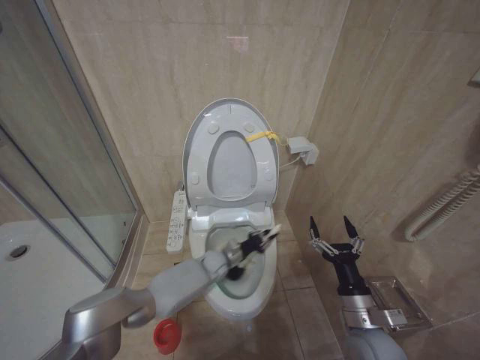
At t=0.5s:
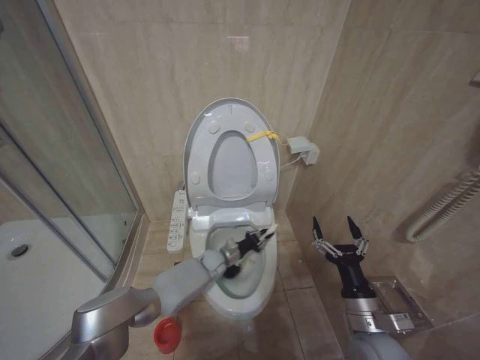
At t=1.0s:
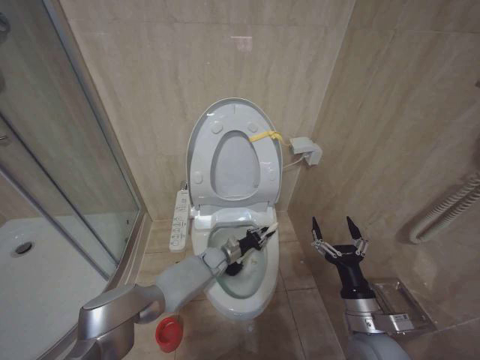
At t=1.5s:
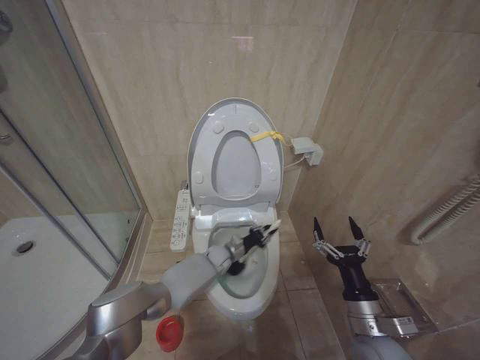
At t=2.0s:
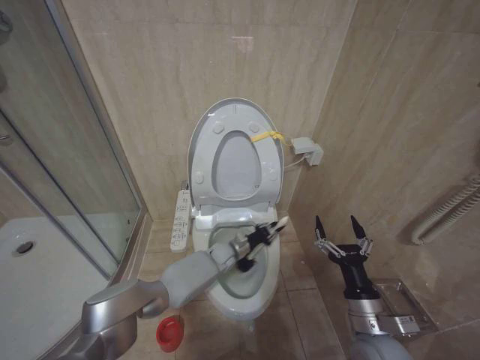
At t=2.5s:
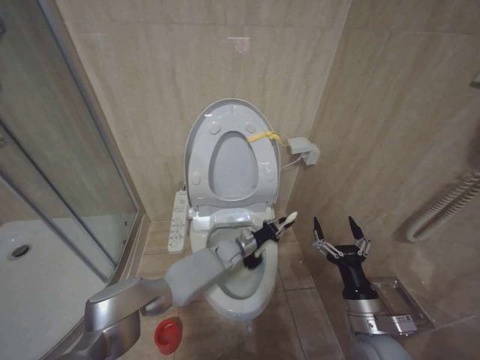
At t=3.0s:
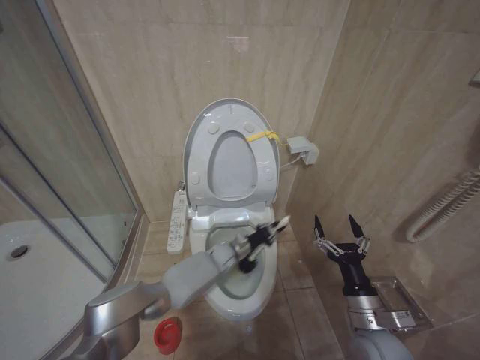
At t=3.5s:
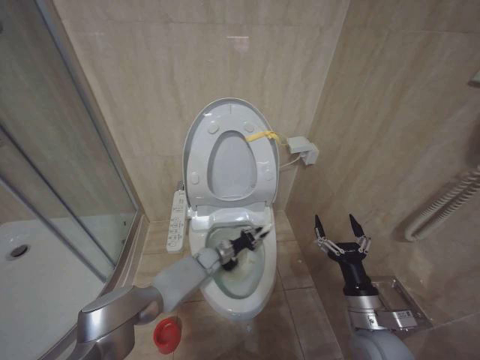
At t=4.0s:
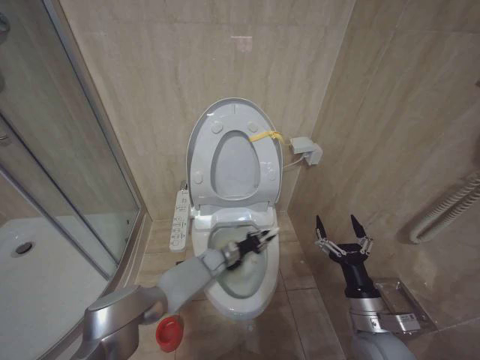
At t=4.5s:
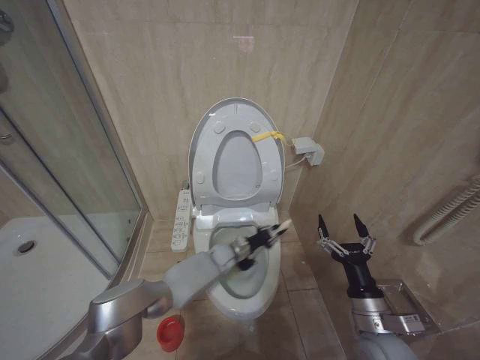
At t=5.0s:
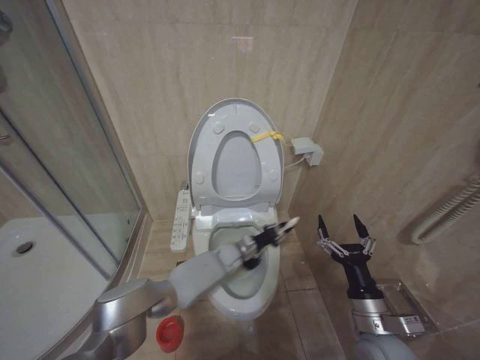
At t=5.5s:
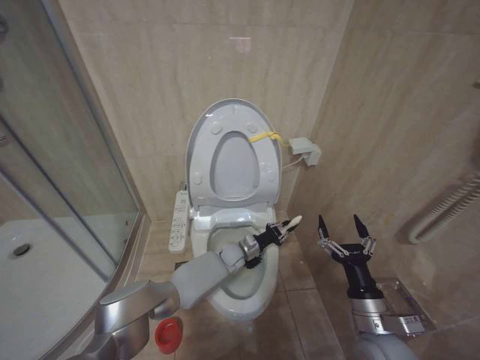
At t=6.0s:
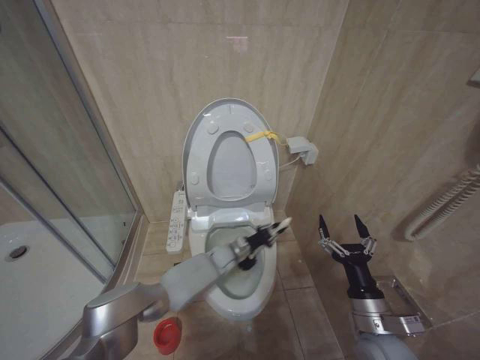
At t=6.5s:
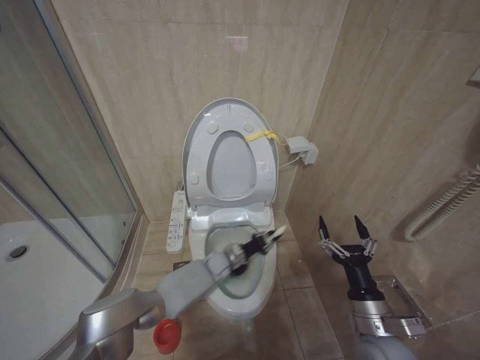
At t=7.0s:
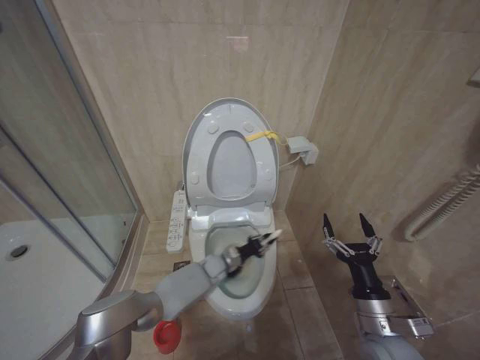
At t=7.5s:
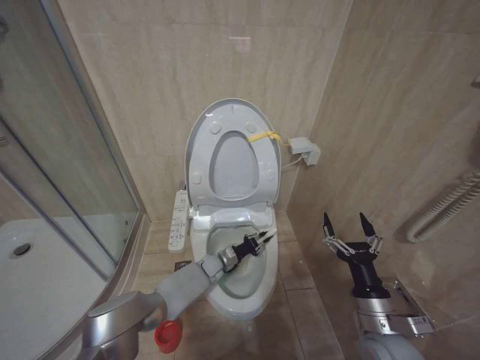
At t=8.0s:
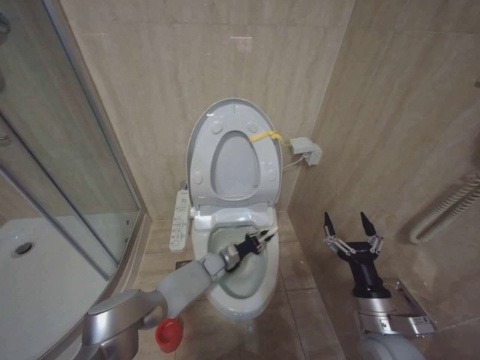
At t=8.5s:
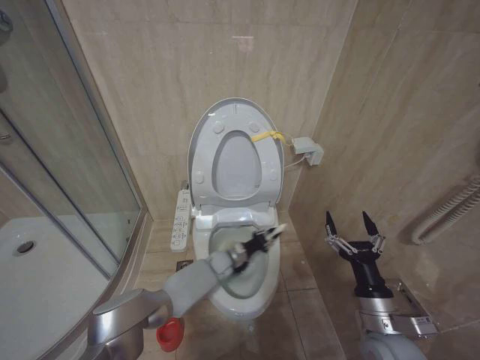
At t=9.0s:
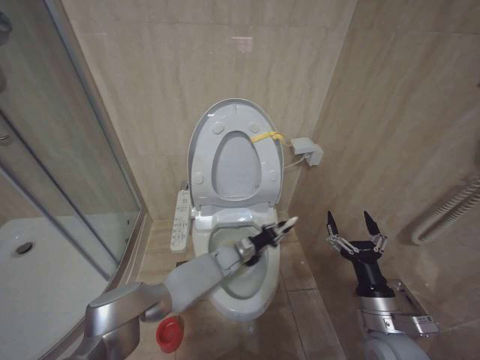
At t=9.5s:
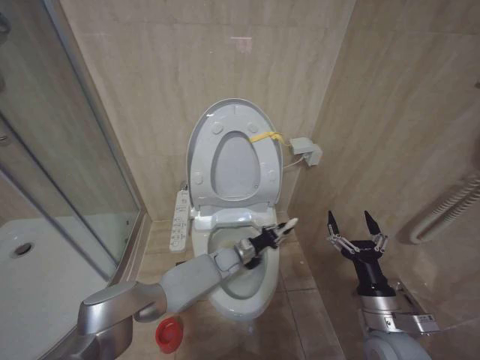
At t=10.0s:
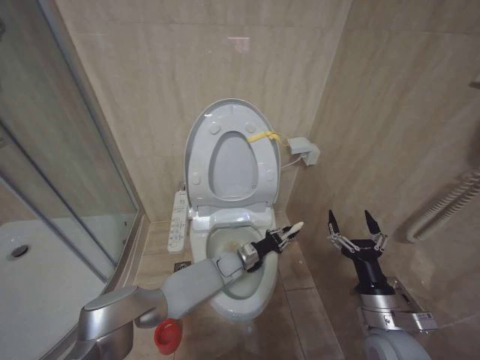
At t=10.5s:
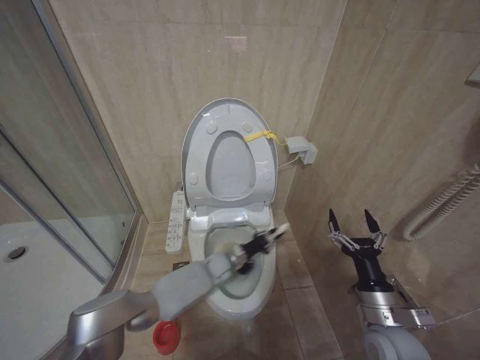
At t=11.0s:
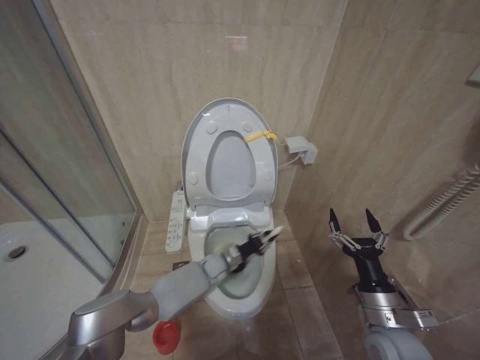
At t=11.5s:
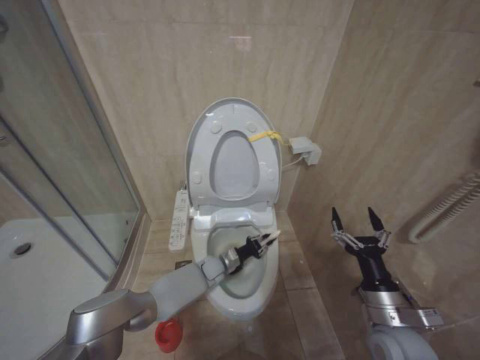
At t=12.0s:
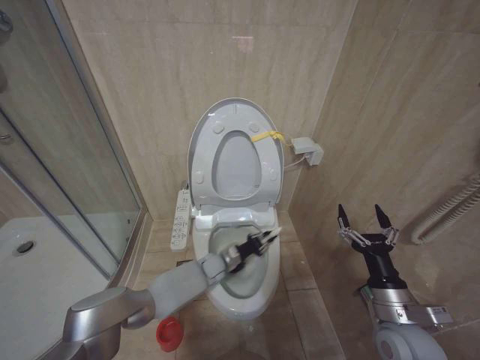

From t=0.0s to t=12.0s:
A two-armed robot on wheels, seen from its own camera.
Task of the whole recording: Open the toilet lid, clean the toilet bowl with a toilet brush, close the toilet lid, and flush.
From t=0.0s to t=2.0s: The grippers make only small movements.
From t=2.0s to t=4.0s: The grippers stay close to where they were, moving slightly.
From t=4.0s to t=6.0s: The left gripper shifts some 10 cm to the right and upward.
From t=6.0s to t=8.0s: The left gripper moves downward and to the left, roughly 10 cm.
From t=8.0s to t=10.0s: The left gripper shifts some 10 cm to the right and upward.
From t=10.0s to t=12.0s: The left gripper is displaced to the left by about 5 cm.

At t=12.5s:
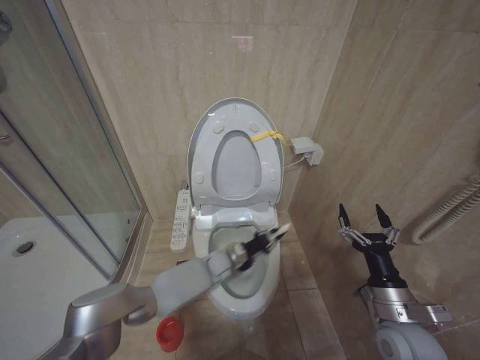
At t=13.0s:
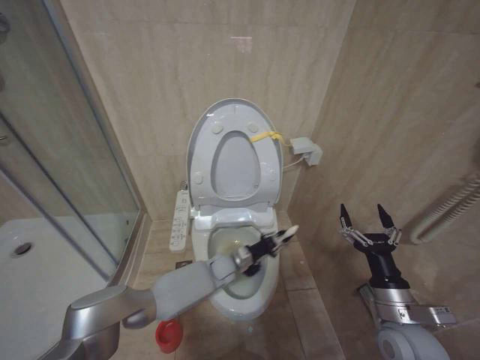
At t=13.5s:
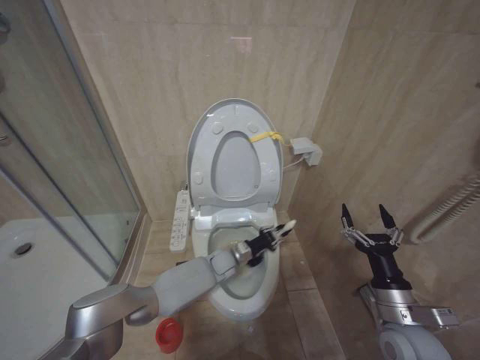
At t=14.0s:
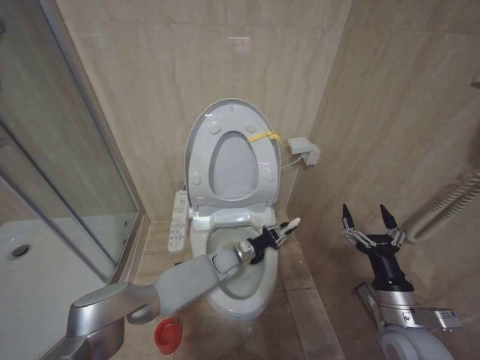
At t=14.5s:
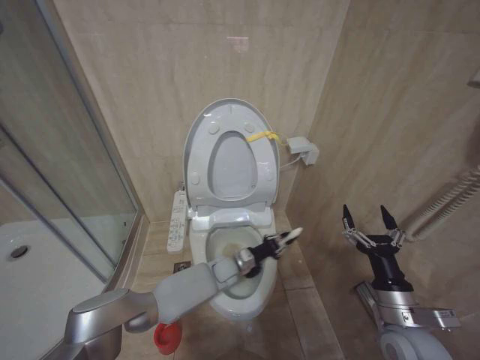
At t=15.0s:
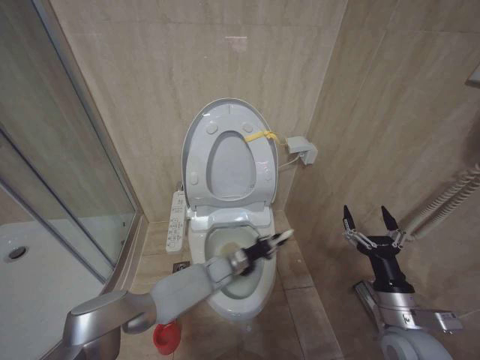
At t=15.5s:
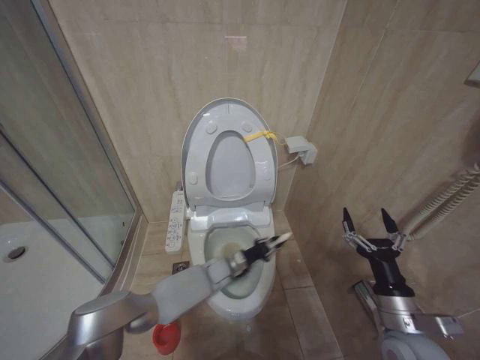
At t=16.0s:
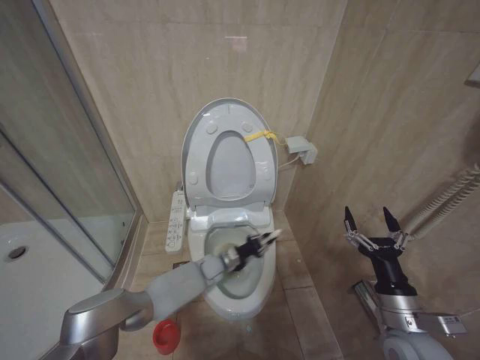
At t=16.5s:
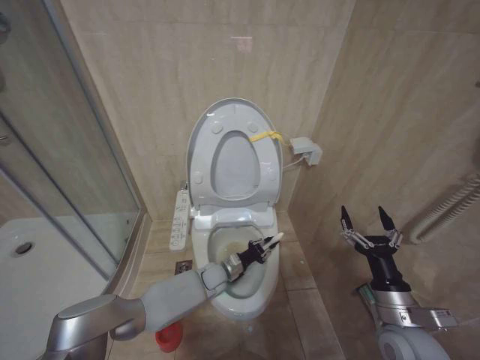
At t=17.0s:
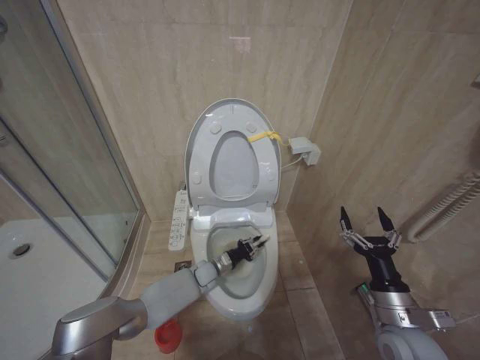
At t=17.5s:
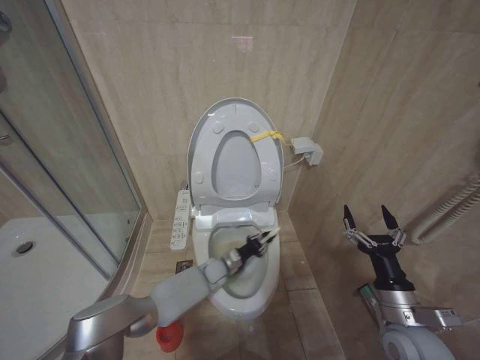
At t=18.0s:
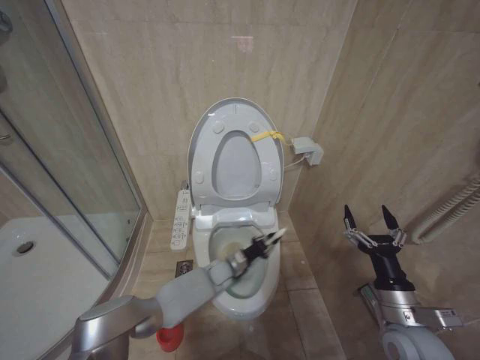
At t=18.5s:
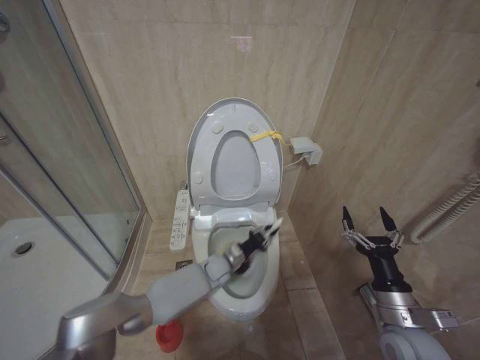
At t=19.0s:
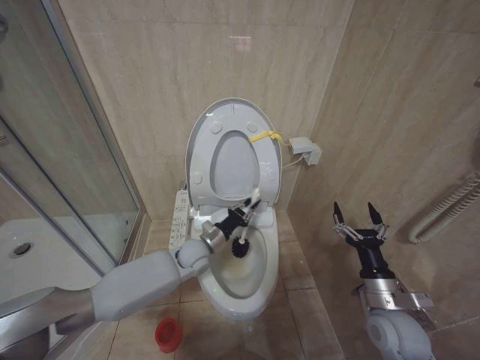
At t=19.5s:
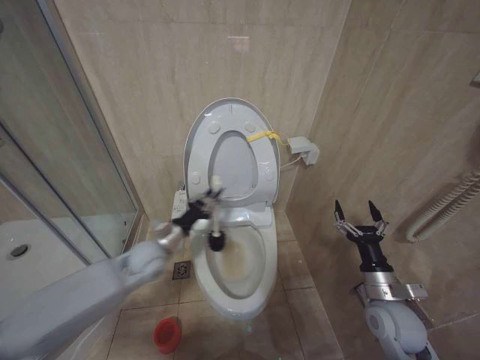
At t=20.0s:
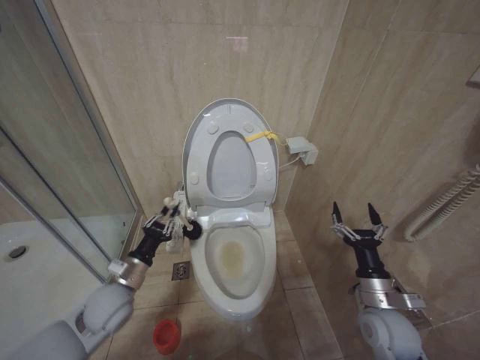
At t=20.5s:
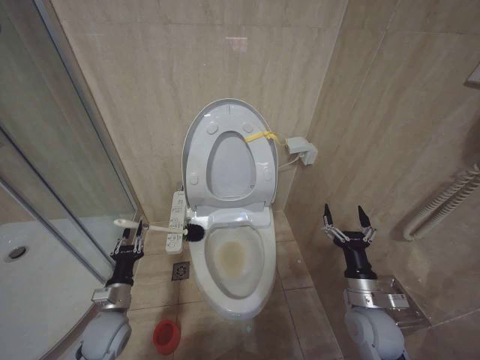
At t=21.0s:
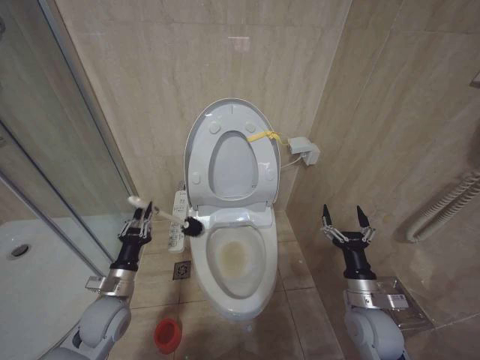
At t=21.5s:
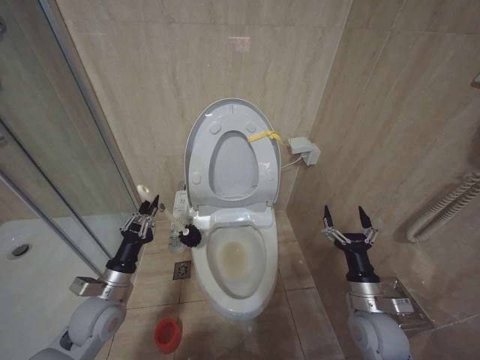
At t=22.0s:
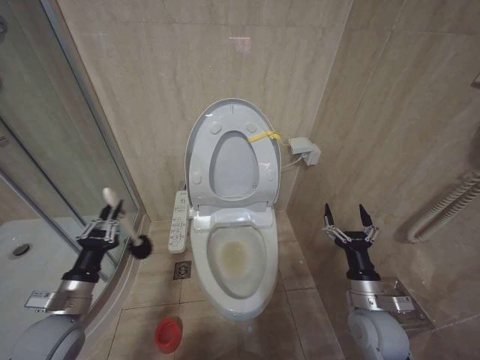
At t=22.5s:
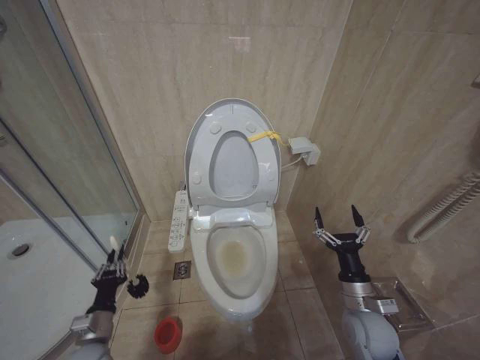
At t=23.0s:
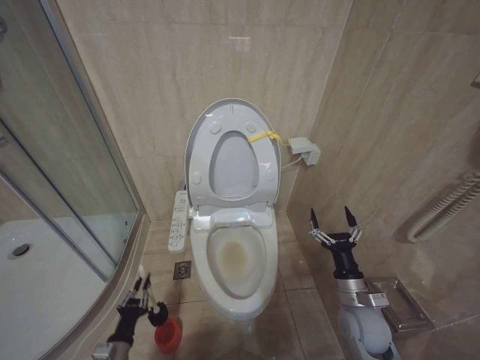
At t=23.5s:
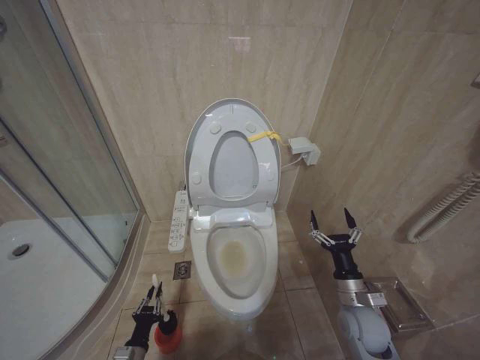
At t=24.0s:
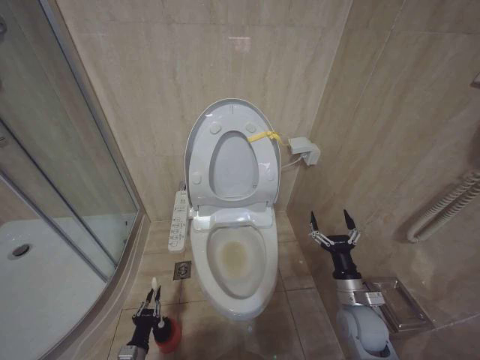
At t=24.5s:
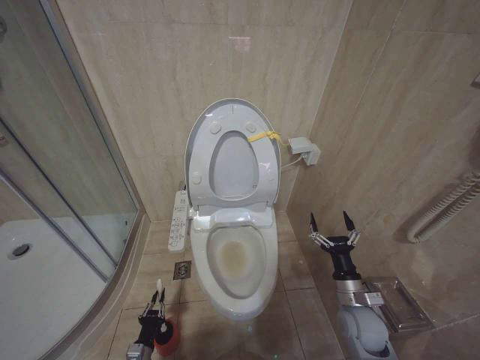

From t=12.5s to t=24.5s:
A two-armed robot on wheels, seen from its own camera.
Task of the whole recording: Open the toilet lid, clean the toilet bowl with a toilet brush, close the toilet lid, and flush.
From t=12.5s to t=14.5s: The left gripper moves to the right, approximately 5 cm.
From t=16.5s to t=18.5s: The grippers stay close to where they were, moving slightly.
From t=18.5s to t=20.5s: The left gripper heads to the left and backward, covering about 30 cm, while the right gripper ends up about 5 cm from where it was.
From t=20.5s to t=22.5s: The left gripper goes upward and returns, some 10 cm each way.
From t=22.5s to t=24.5s: The left gripper goes roughly 20 cm downward.

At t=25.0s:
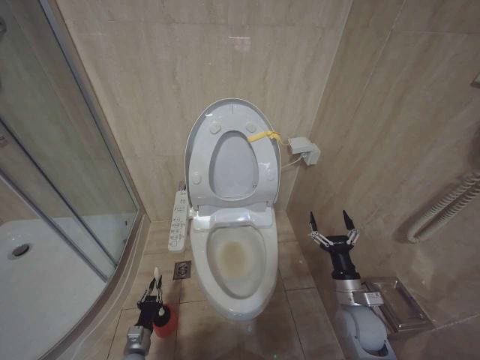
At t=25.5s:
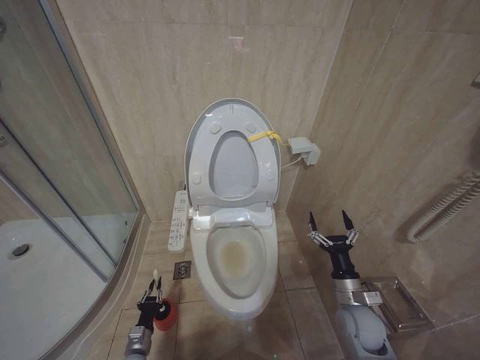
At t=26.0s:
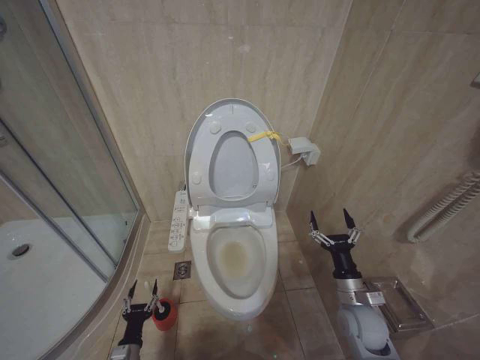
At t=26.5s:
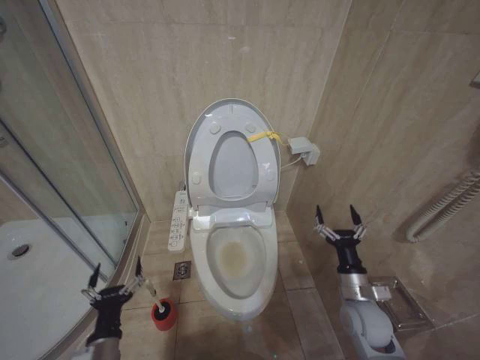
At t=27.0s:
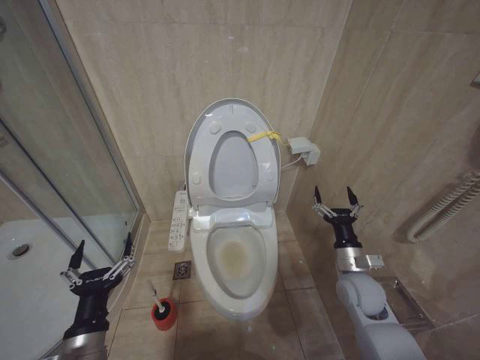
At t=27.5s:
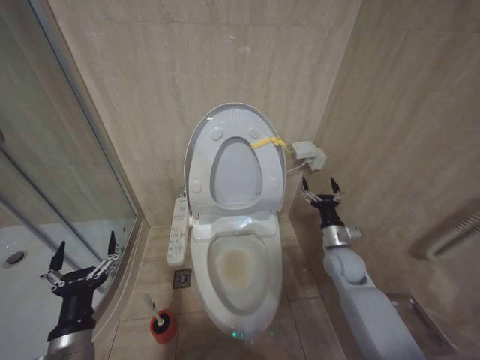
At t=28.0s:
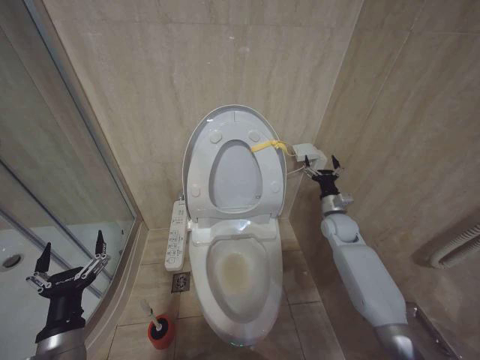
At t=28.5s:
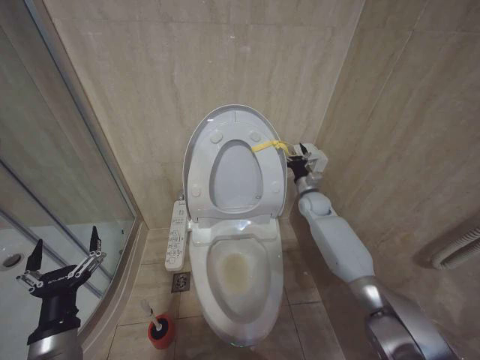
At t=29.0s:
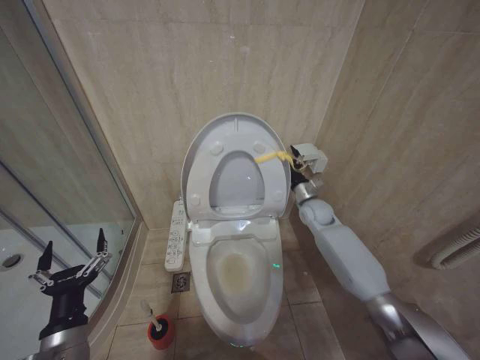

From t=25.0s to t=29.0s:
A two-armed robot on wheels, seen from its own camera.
Task of the whole recording: Open the toilet lid, clean the toilet bowl with a toilet brush, close the toilet lid, and flush.
From t=25.0s to t=27.0s: The left gripper shifts approximately 30 cm upward, and opens up; the right gripper travels upward by about 5 cm.
From t=27.0s to t=29.0s: The right gripper travels forward by approximately 25 cm.
